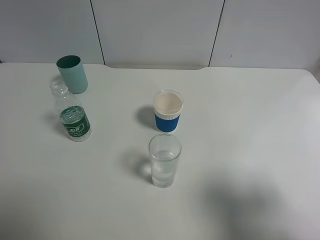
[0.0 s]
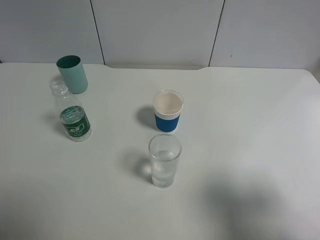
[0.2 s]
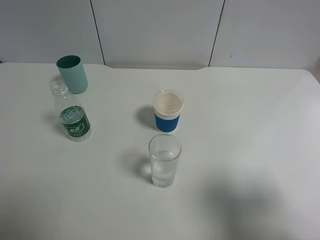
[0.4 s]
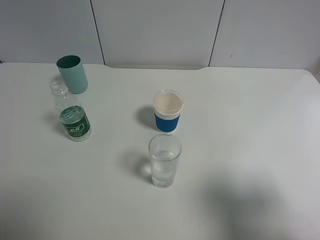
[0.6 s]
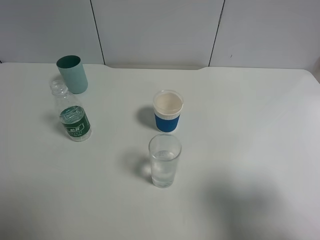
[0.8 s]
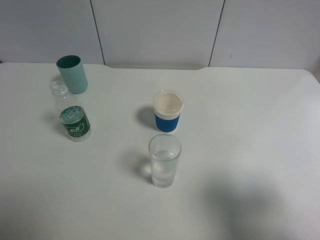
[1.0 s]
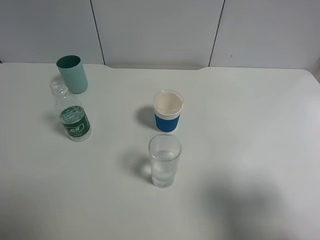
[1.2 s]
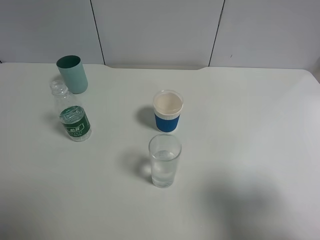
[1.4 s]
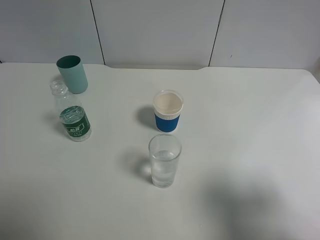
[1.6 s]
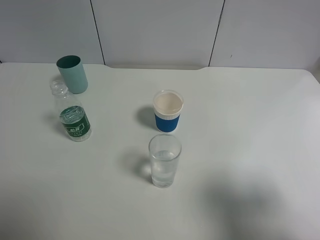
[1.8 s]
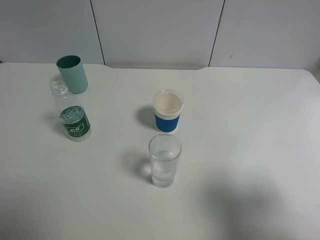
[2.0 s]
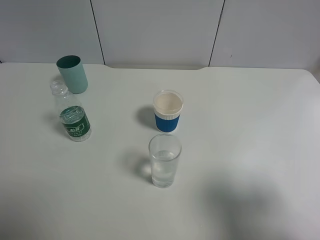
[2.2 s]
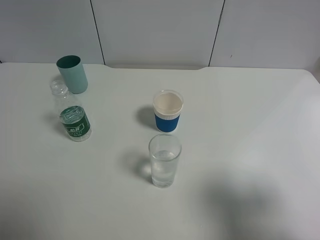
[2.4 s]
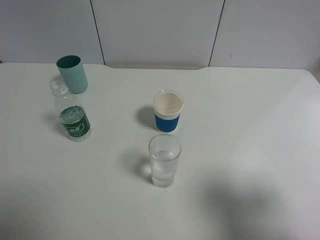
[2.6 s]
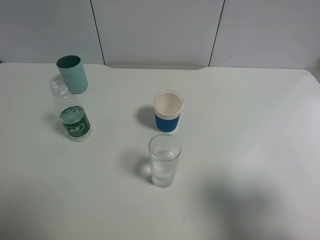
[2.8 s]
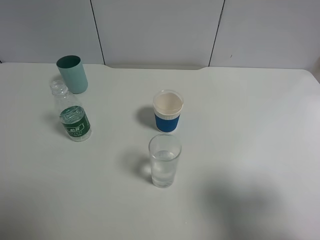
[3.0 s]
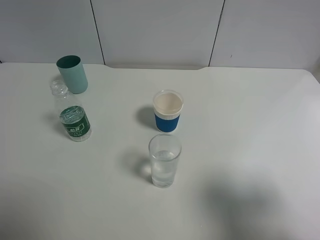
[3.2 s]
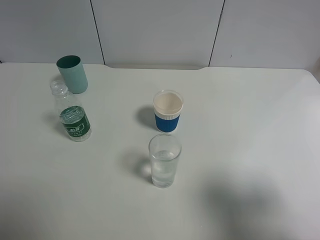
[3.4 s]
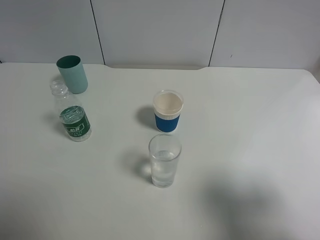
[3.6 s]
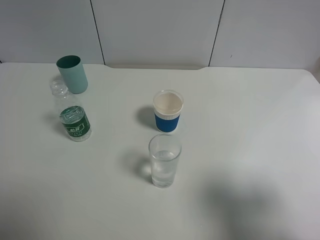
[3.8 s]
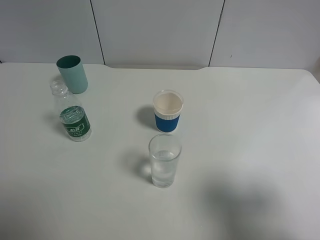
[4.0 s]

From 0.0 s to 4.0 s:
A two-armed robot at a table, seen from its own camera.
Task of the whole recording: use a gripper to hold the bottle of the drink and pour it into a random cup.
From 0.0 s to 4.0 s: Neither gripper changes place.

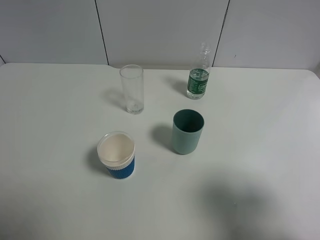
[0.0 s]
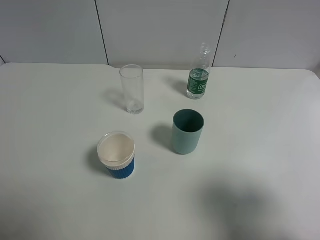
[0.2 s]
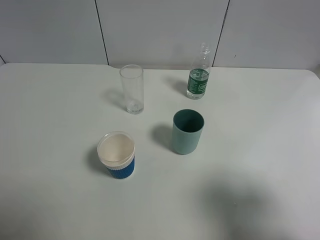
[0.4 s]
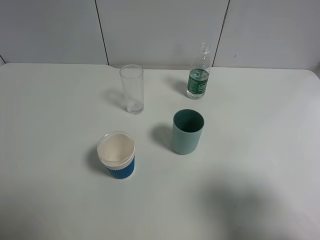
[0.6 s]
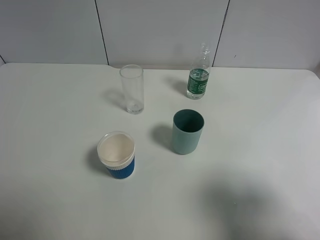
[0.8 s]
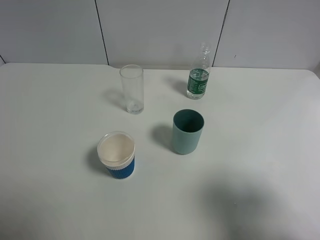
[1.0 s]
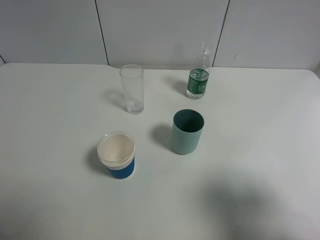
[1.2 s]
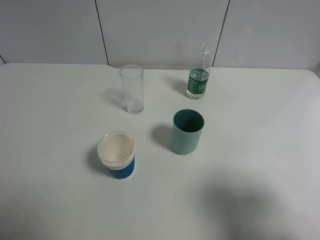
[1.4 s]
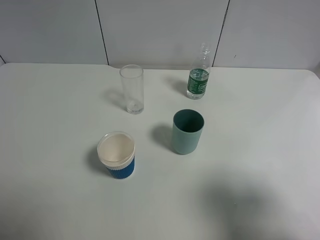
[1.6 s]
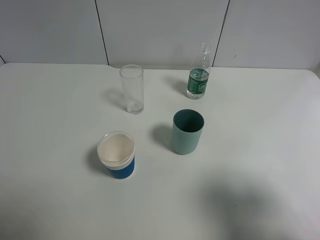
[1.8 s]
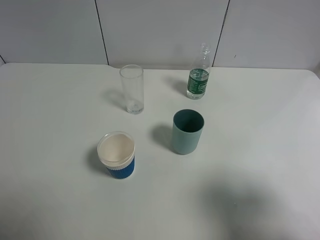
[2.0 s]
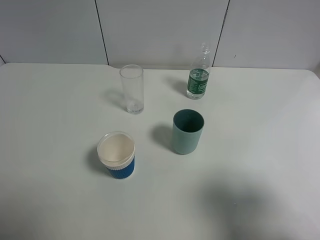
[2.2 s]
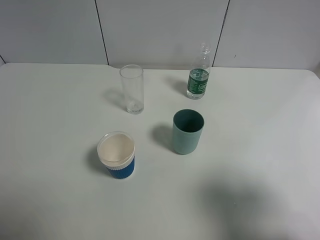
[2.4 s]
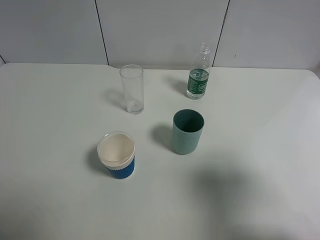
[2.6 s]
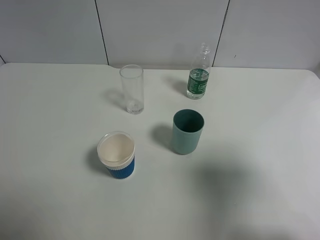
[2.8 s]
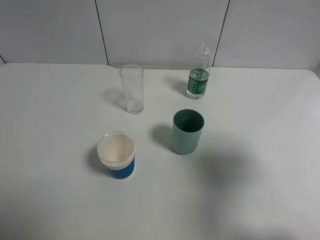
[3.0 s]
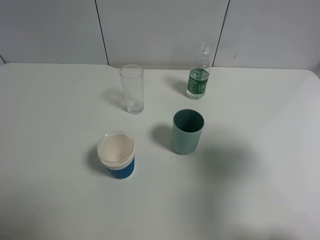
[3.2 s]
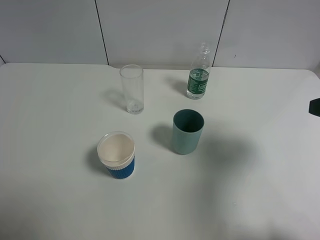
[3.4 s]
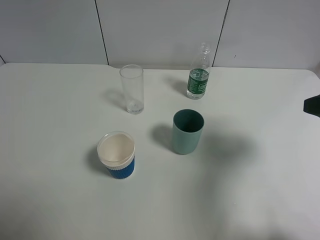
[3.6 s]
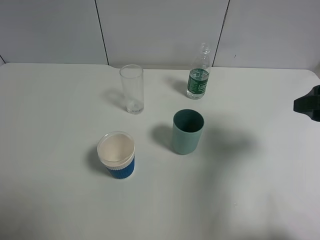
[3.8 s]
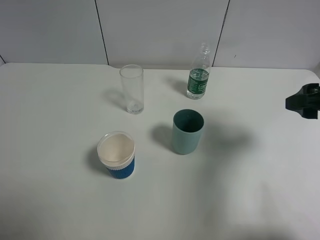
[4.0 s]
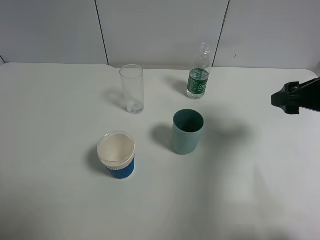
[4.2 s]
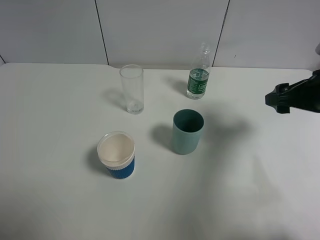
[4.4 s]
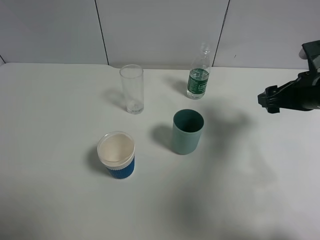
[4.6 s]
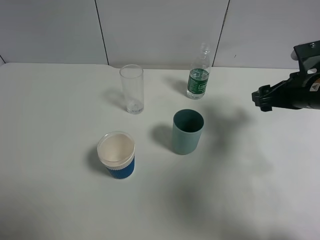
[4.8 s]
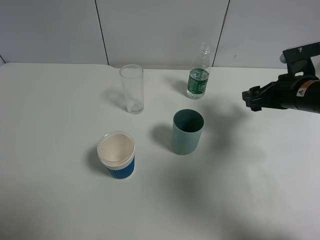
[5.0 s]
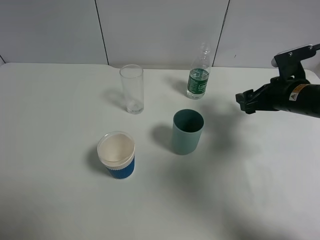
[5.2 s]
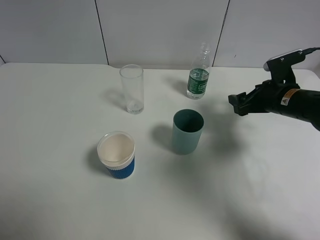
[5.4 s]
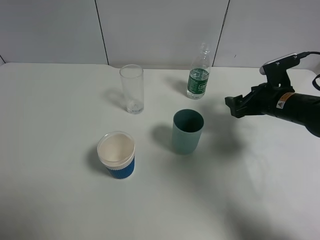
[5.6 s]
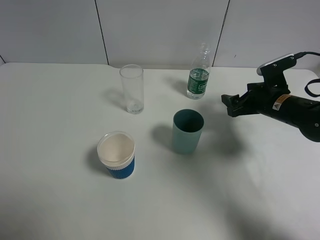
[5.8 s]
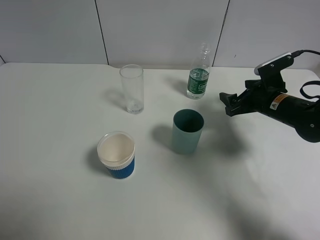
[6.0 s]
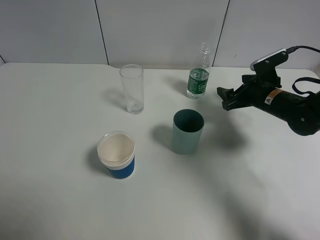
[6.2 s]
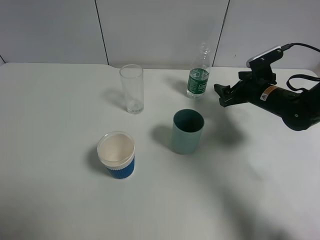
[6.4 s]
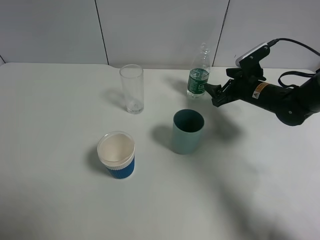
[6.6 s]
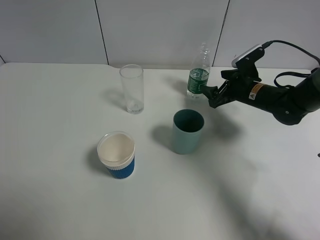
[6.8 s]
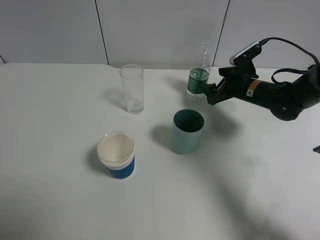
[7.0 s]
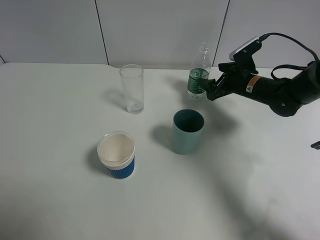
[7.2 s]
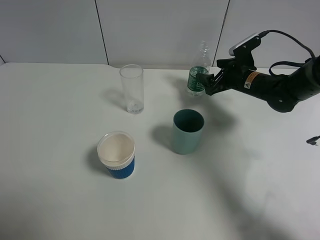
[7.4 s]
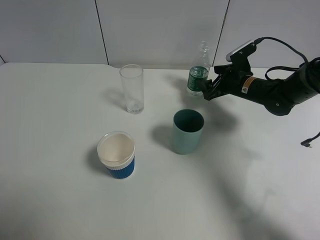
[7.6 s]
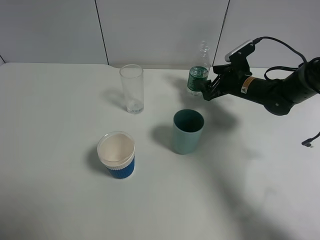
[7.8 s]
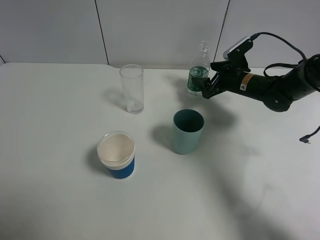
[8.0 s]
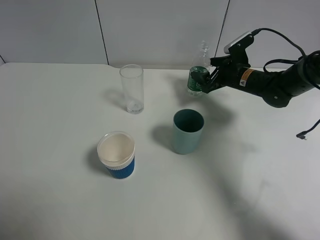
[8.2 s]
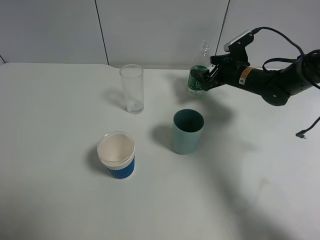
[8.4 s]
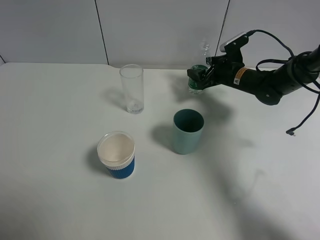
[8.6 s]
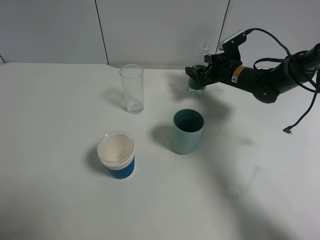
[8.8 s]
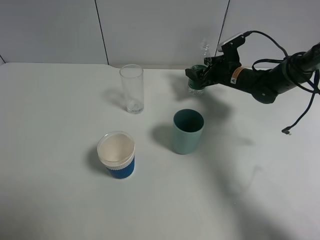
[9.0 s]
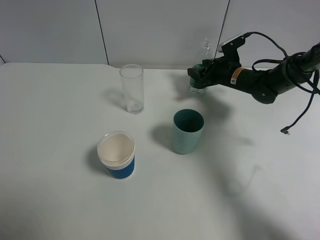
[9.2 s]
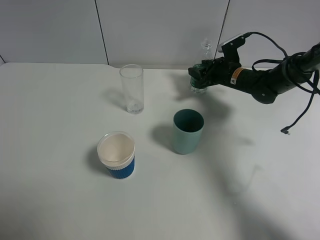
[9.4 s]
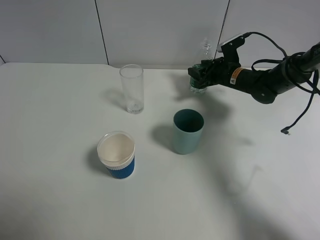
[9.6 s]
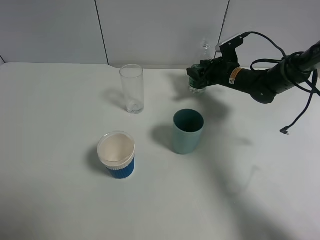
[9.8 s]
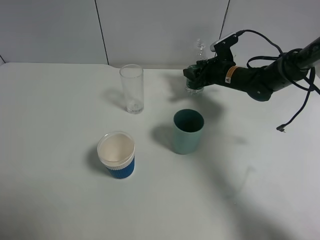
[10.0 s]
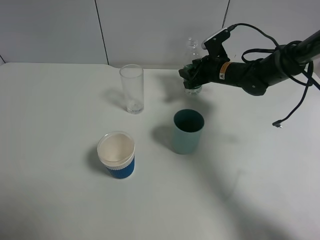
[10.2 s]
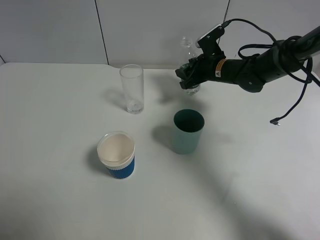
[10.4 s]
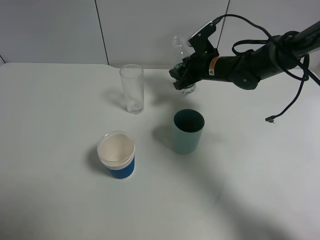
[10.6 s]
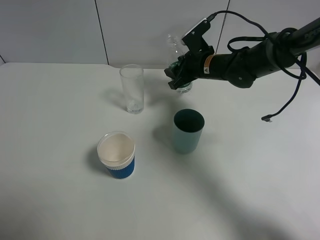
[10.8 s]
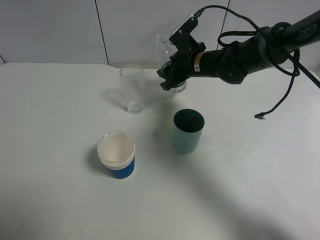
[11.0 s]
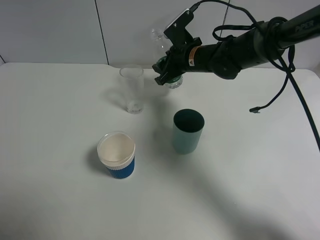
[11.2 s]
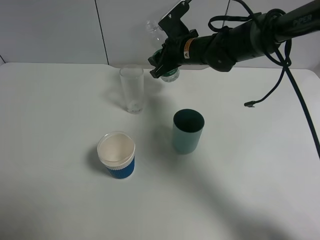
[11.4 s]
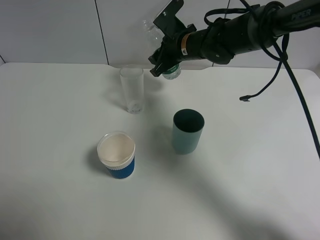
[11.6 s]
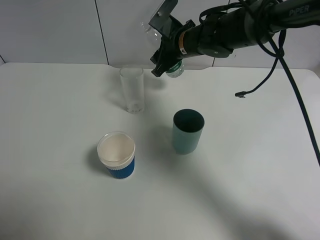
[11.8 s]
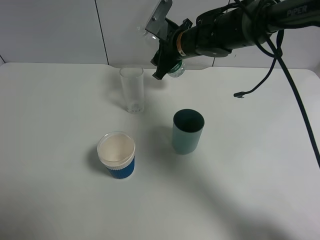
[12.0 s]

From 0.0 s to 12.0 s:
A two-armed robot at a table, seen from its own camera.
Task of the whole recording: use a gripper to hold the bottle of the drink and pour it into a random cup.
Step, from 0.0 s to 9.8 s: Grasp the mineral water bottle with the right gripper.
From 0.0 s to 1.6 s: The two grippers keep their place.
From 1.6 s to 3.0 s: The right gripper goes about 10 cm forward.
From 3.0 s to 4.4 s: The right gripper travels forward and downward by some 15 cm.
From 4.4 s to 6.0 s: The right gripper is displaced downward and forward by some 15 cm.
From 6.0 s to 7.6 s: The right gripper is displaced forward by some 10 cm.
From 7.6 s to 9.0 s: The grippers make only small movements.
From 9.0 s to 10.4 s: The right gripper shifts approximately 5 cm to the left, and closes its fingers.
From 10.4 s to 12.0 s: The right gripper is displaced to the left and upward by approximately 10 cm.

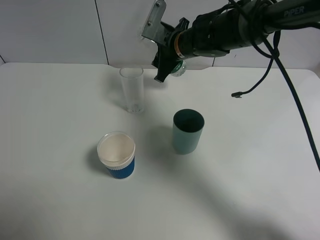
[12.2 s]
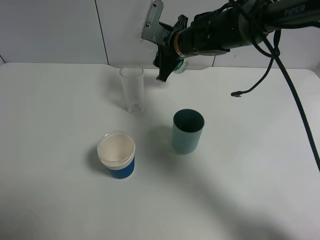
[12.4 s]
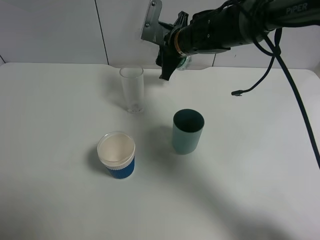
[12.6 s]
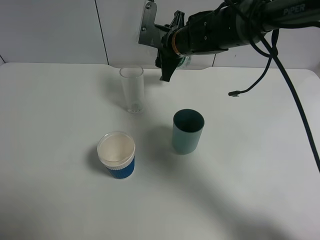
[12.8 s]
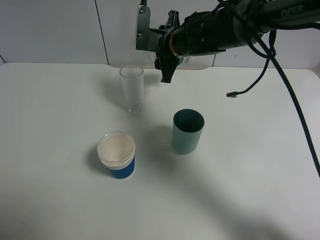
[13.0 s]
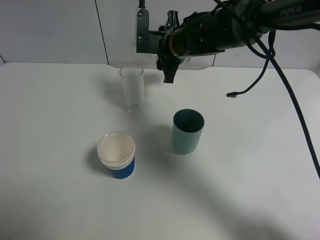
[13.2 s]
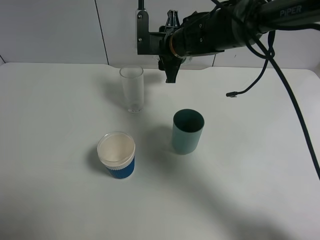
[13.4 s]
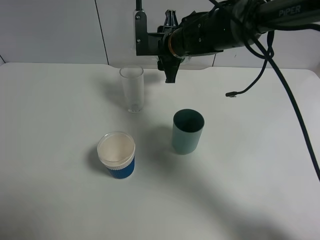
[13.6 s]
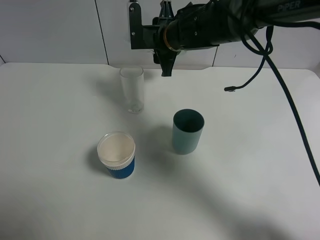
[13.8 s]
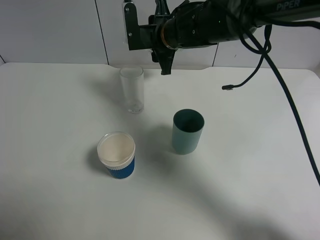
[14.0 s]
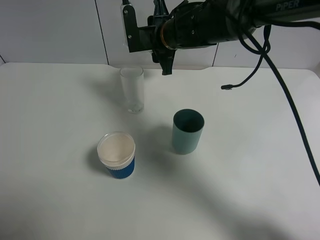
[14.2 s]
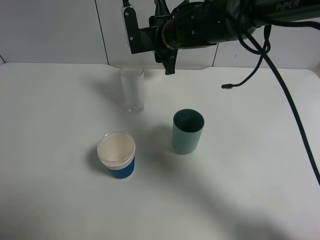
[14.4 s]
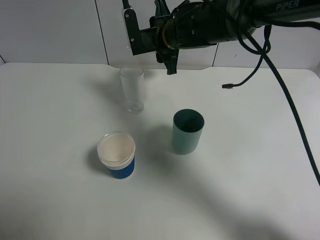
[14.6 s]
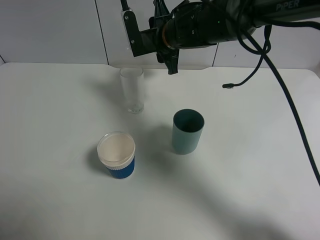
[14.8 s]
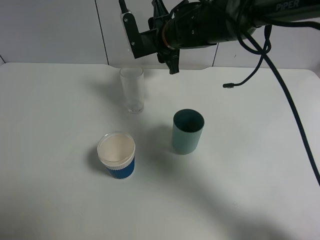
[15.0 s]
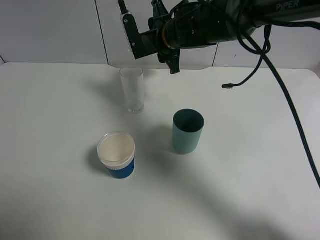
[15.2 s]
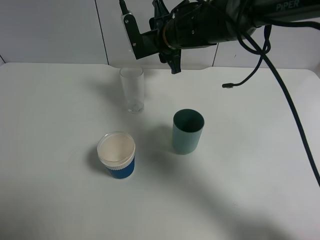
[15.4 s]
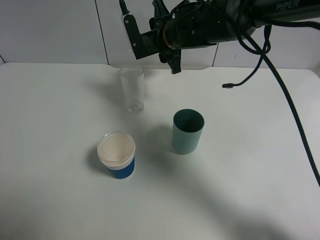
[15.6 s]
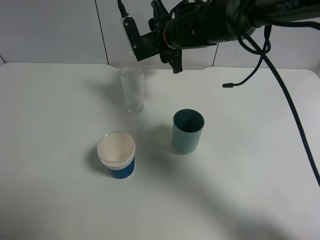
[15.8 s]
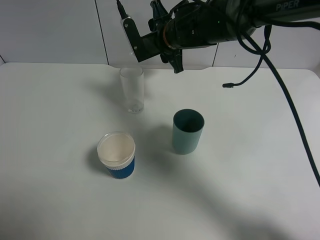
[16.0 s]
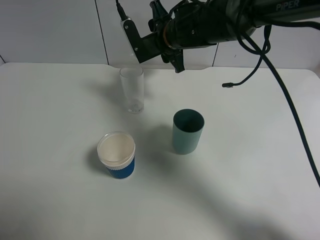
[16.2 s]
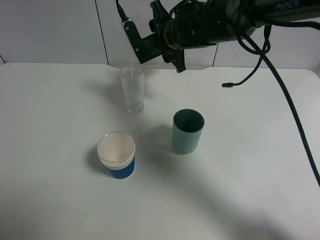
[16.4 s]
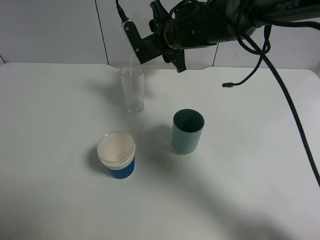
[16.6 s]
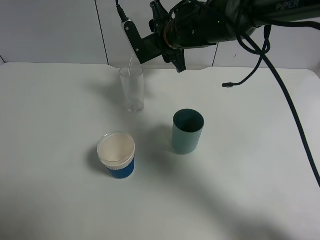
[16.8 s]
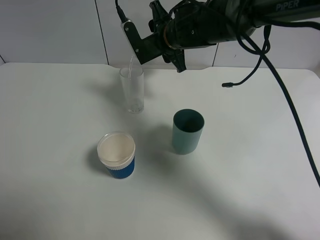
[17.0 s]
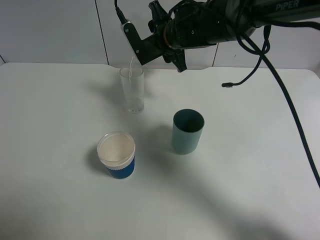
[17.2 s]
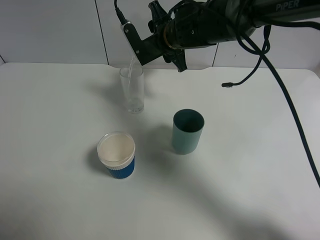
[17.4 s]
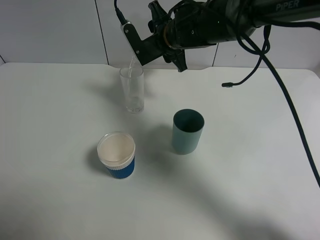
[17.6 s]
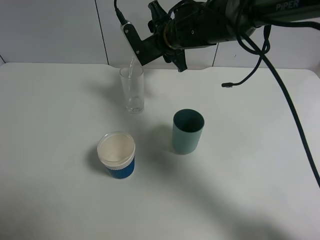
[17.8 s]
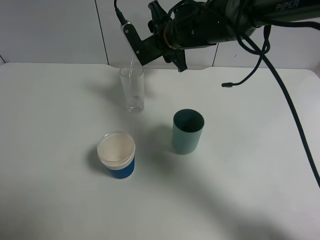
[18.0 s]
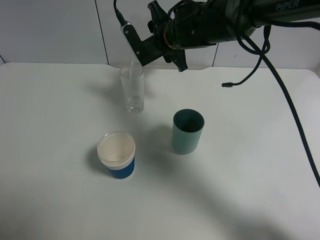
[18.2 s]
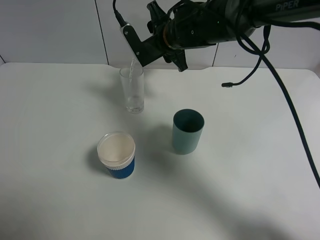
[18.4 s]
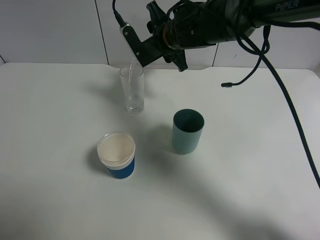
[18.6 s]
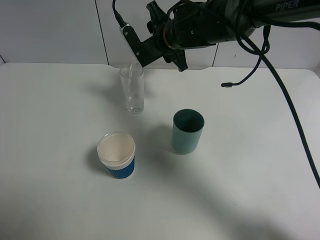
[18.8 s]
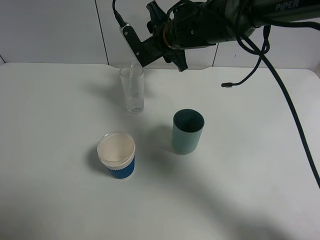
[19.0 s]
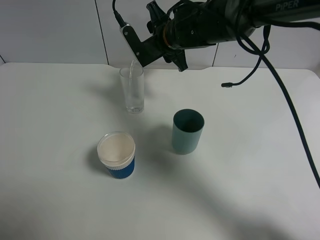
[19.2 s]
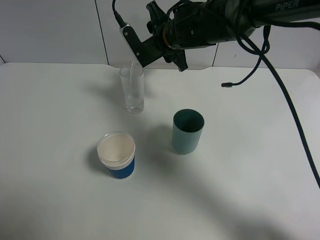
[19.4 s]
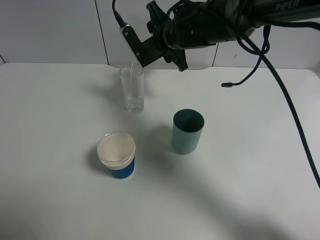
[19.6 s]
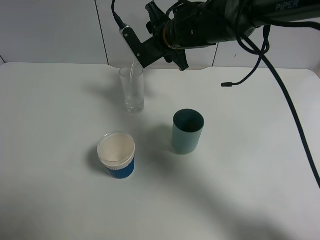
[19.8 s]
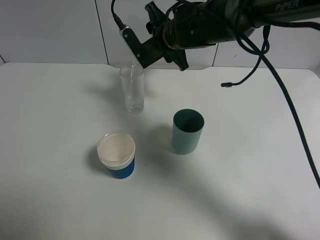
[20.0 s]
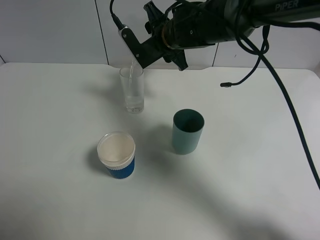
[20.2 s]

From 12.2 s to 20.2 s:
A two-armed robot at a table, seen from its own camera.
Task of the whole recording: use a gripper to hold the bottle of the drink and pour it into a random cup.
From 13.8 s to 15.4 s: The grippers move only a little.
From 15.4 s to 17.0 s: The grippers make only small movements.
From 17.0 s to 18.6 s: The two grippers keep their place.
From 18.6 s to 20.2 s: Both grippers stay about where they are.
